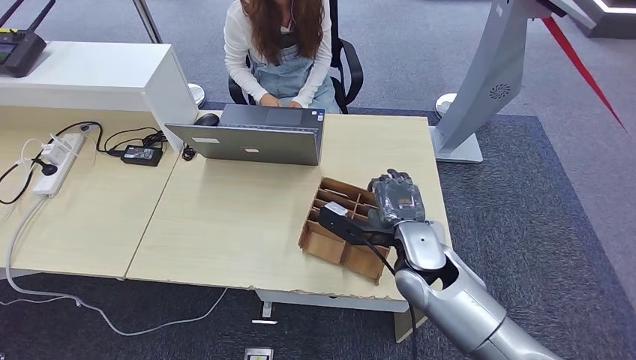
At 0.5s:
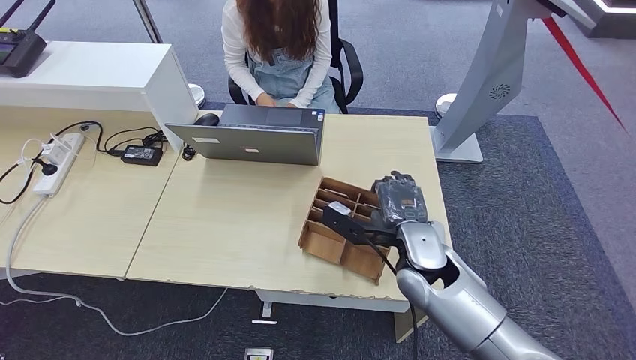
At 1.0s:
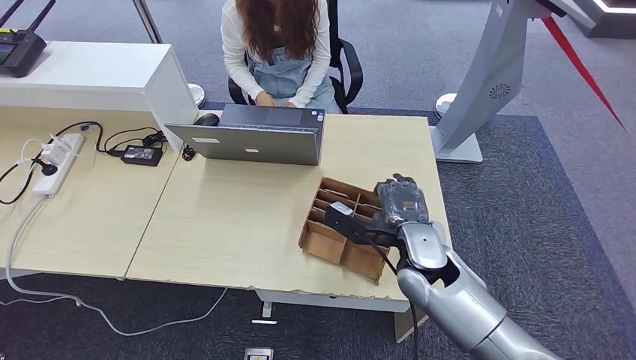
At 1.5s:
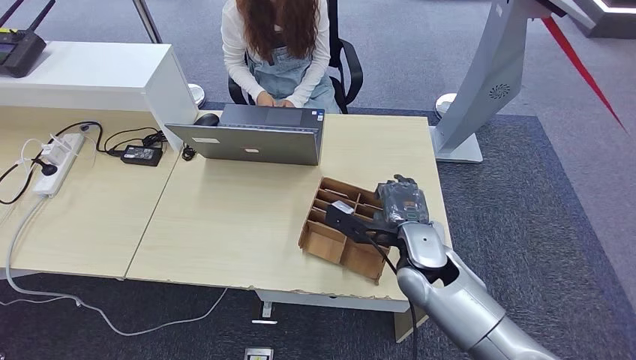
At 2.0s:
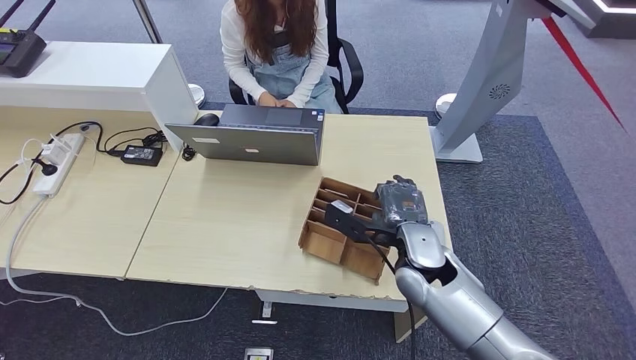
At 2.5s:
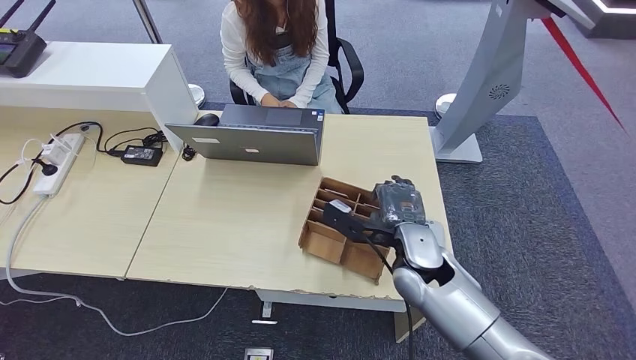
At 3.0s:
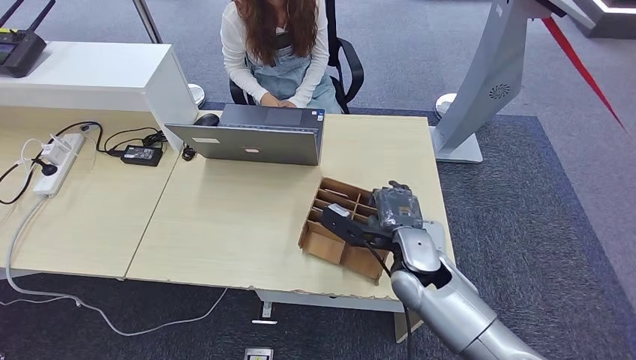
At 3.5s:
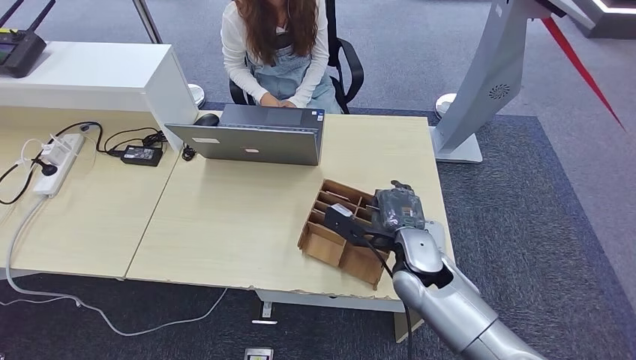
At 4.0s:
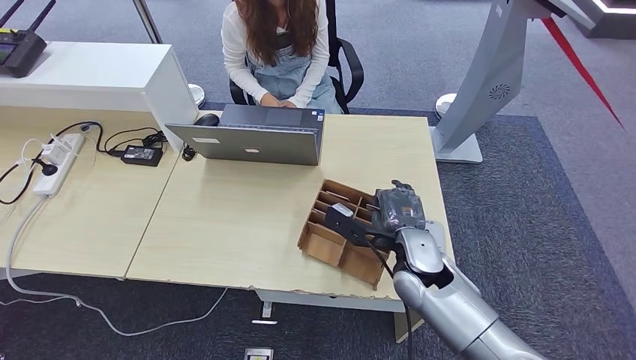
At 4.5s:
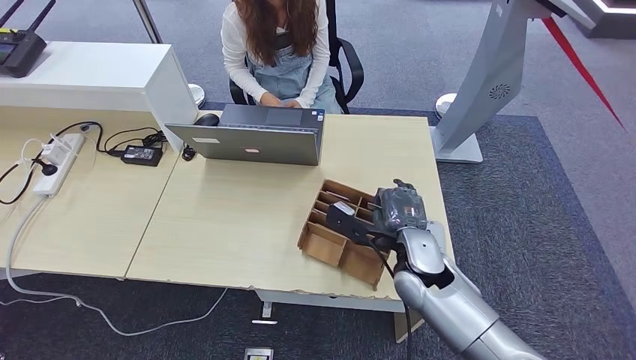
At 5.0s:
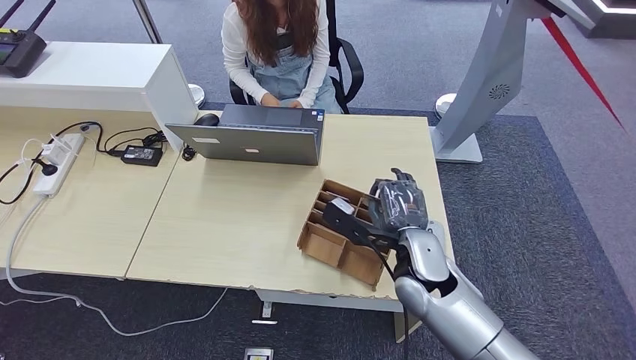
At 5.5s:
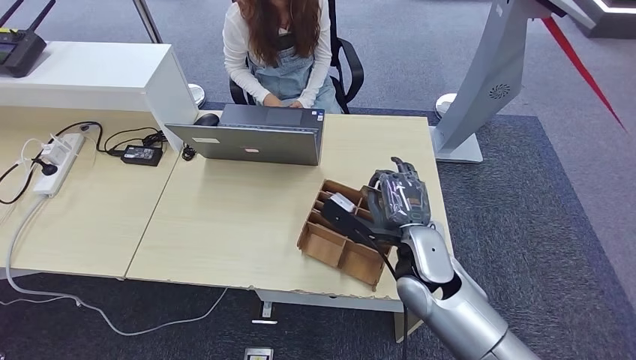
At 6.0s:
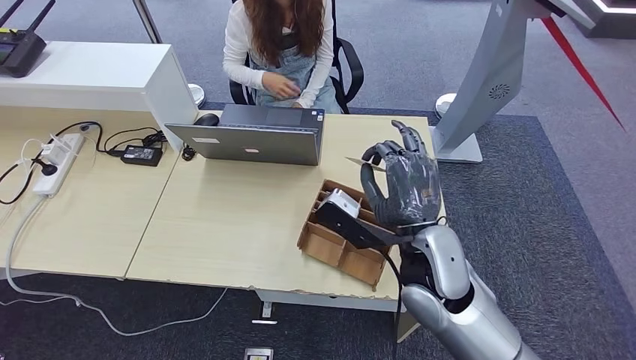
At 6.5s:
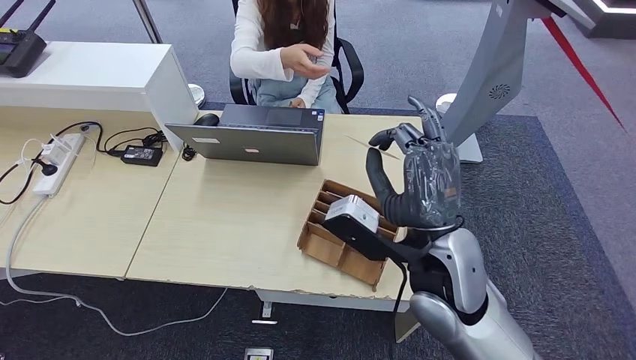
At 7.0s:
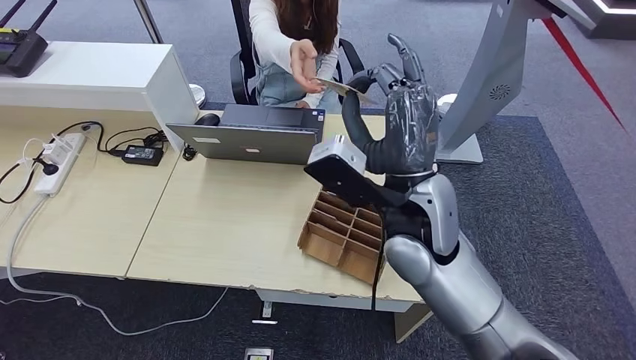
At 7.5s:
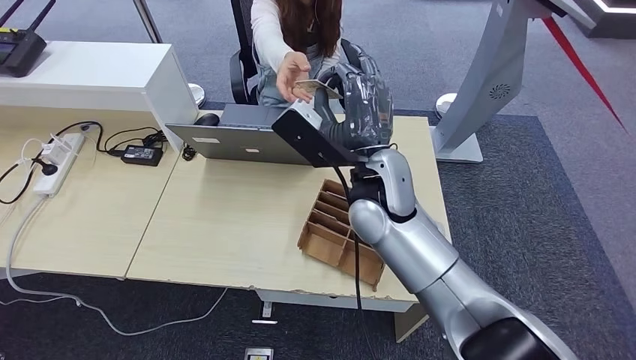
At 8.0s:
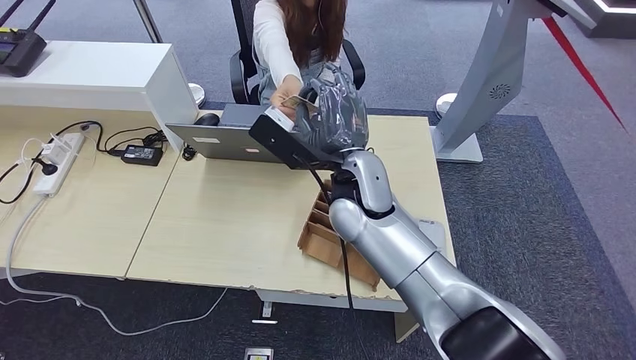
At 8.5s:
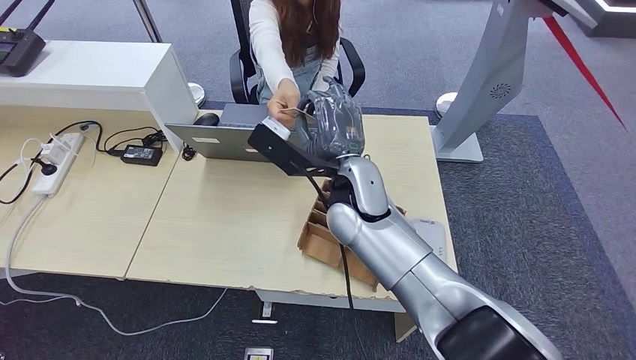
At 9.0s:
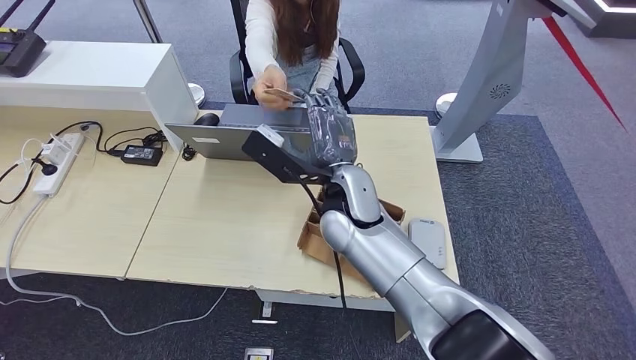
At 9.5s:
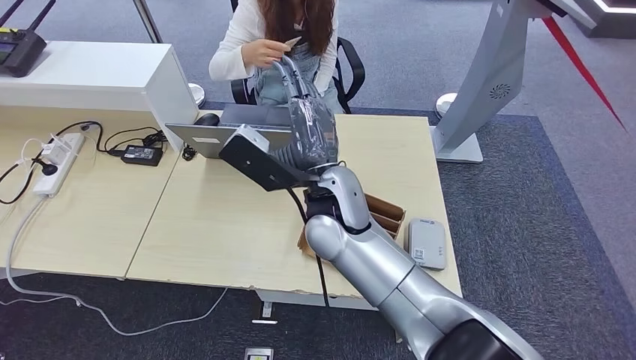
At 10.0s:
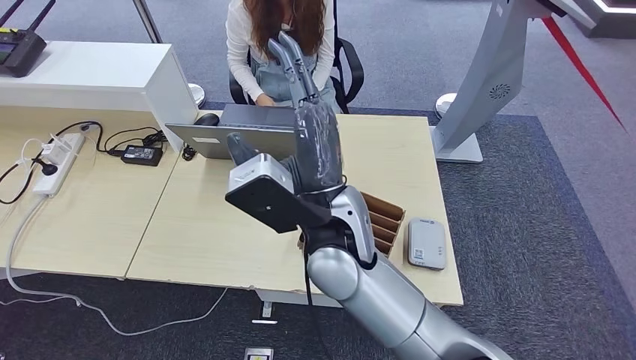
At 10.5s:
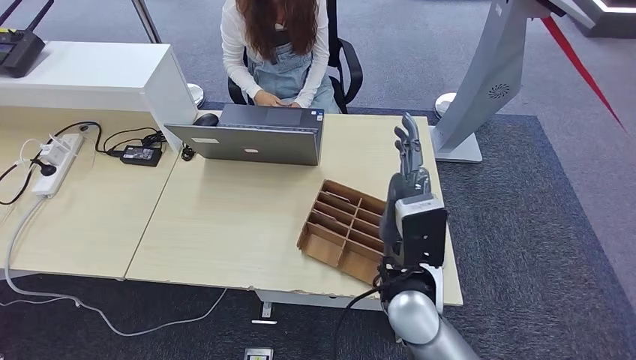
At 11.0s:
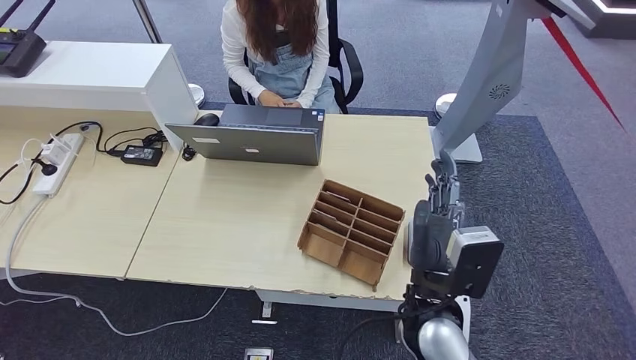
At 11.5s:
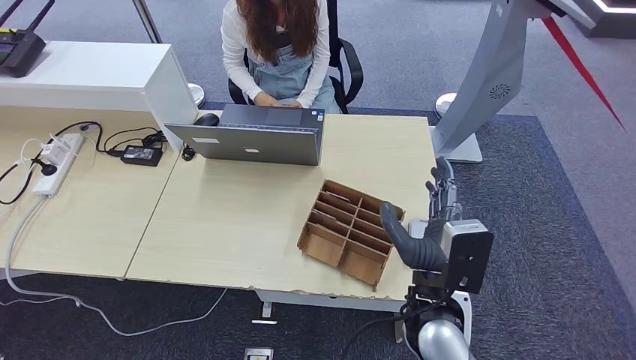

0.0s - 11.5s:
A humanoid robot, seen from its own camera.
Step, 0.0s - 7.0s: Pick up the room key from the key card box.
Step, 7.5s - 11.5s: Hand the room key to the person.
0.0s - 4.0s: There are only small adjustments of the hands.
4.0s - 6.0s: The right hand goes approximately 10 cm upward.
6.0s - 7.5s: The right hand travels forward, to the left and upward by some 10 cm.
7.5s - 9.5s: The right hand shifts approximately 5 cm to the left.
9.5s - 11.5s: The right hand shifts roughly 20 cm to the right, backward and downward.
